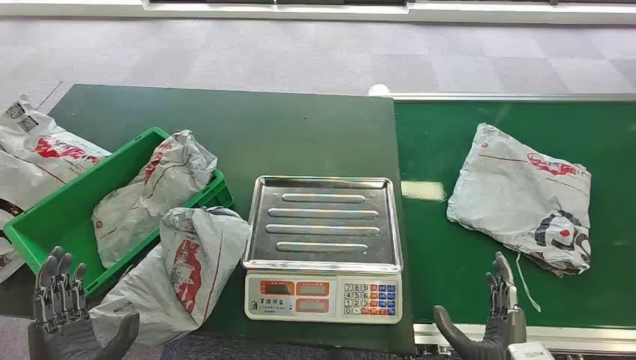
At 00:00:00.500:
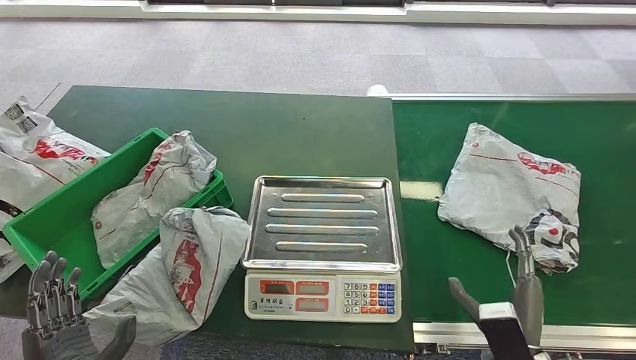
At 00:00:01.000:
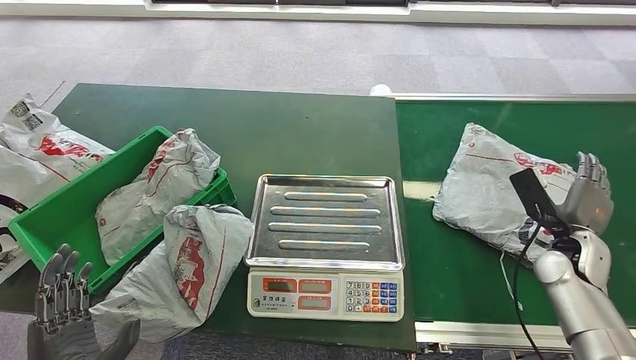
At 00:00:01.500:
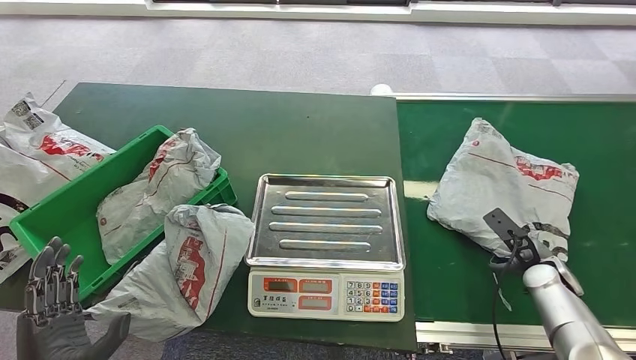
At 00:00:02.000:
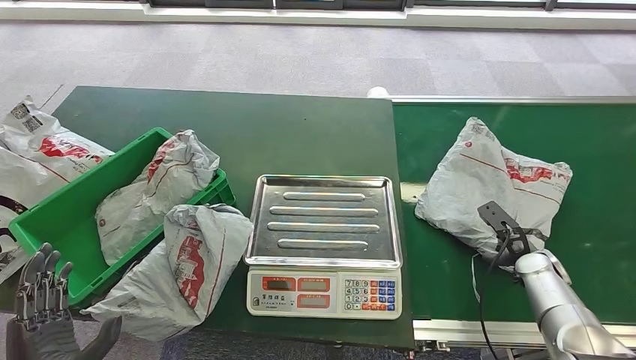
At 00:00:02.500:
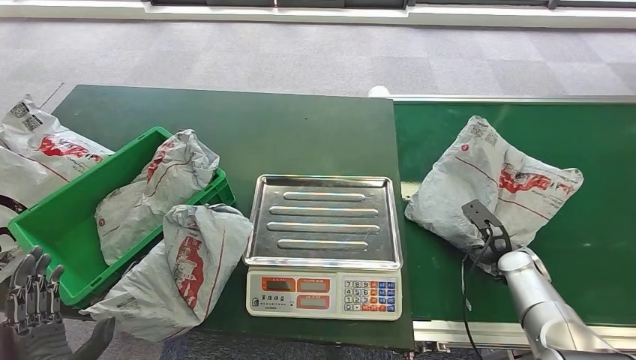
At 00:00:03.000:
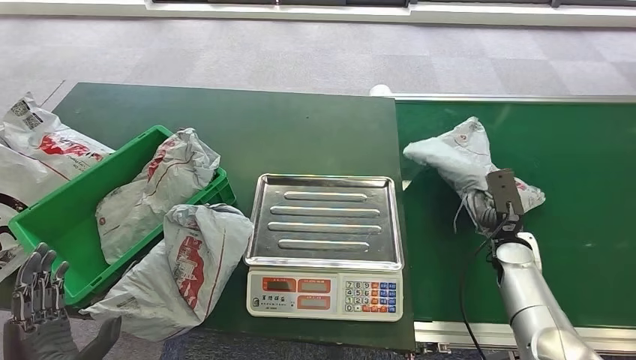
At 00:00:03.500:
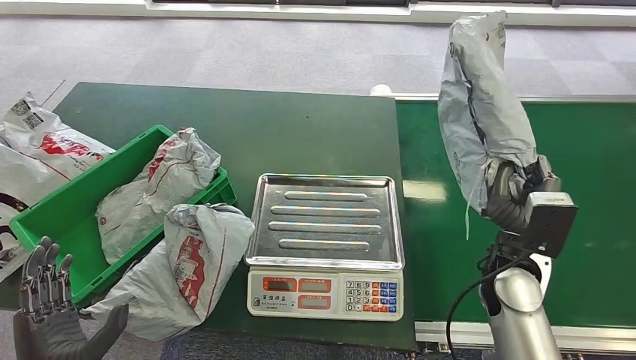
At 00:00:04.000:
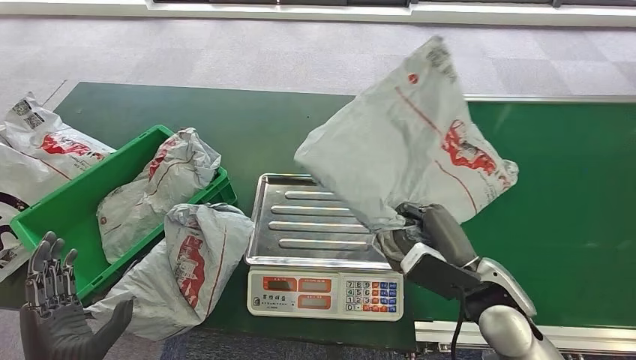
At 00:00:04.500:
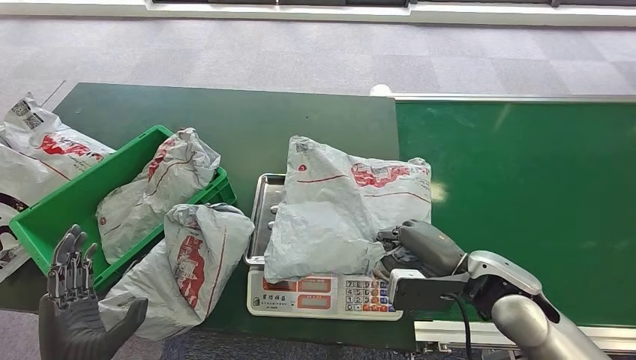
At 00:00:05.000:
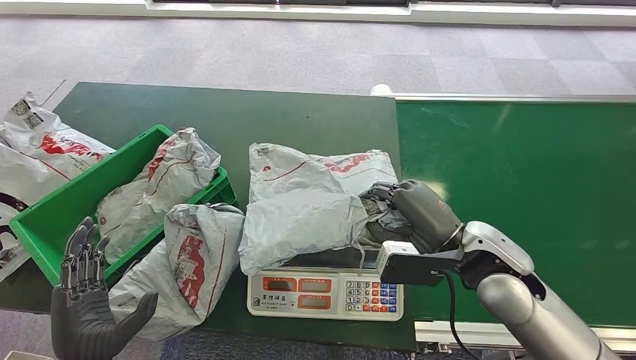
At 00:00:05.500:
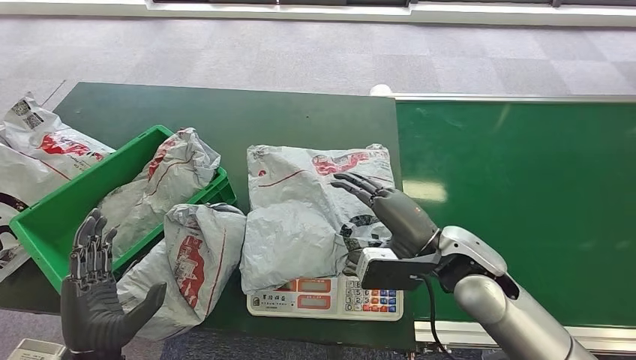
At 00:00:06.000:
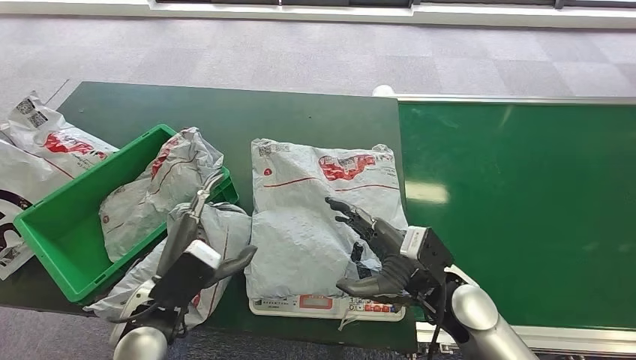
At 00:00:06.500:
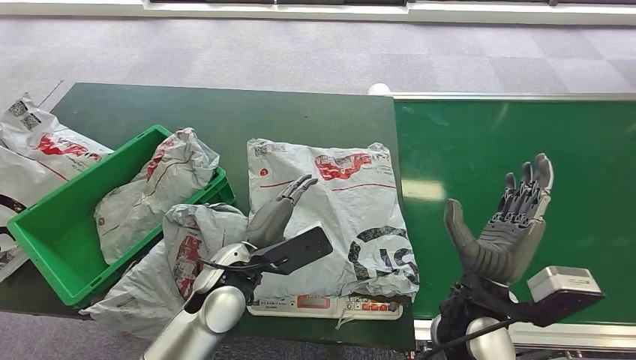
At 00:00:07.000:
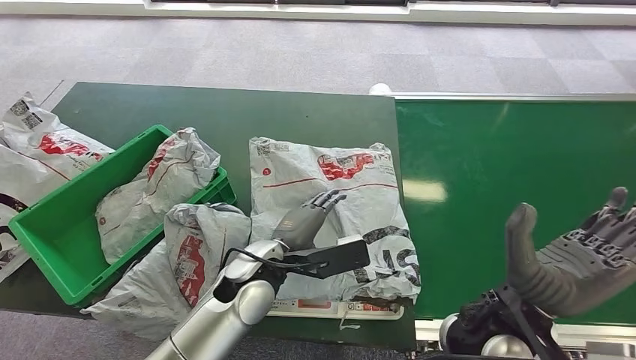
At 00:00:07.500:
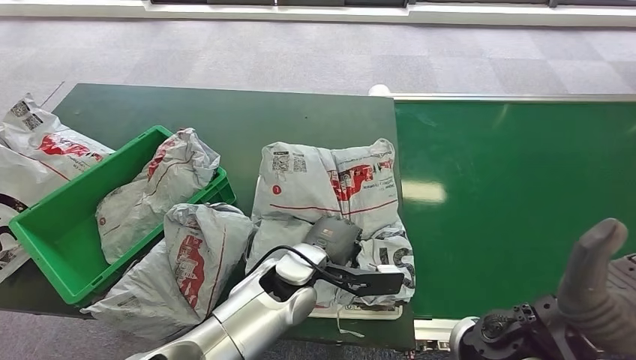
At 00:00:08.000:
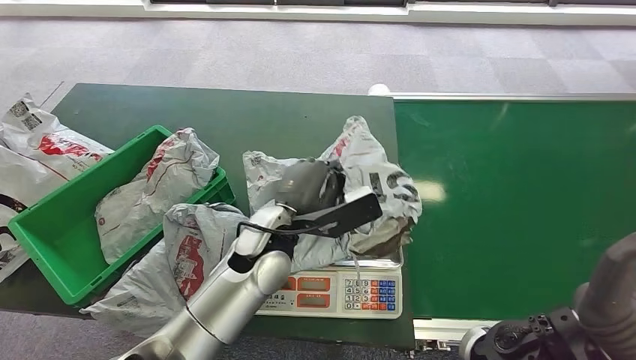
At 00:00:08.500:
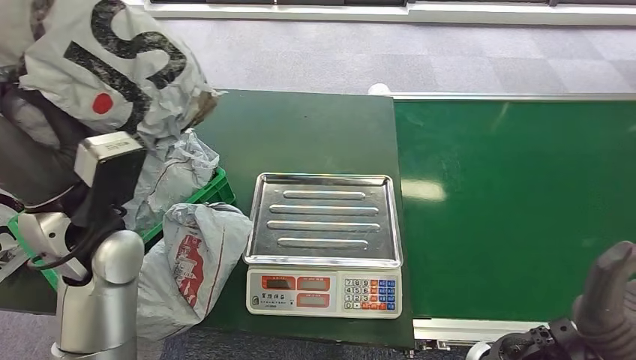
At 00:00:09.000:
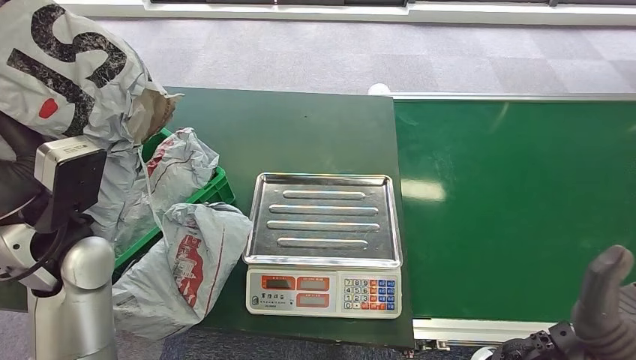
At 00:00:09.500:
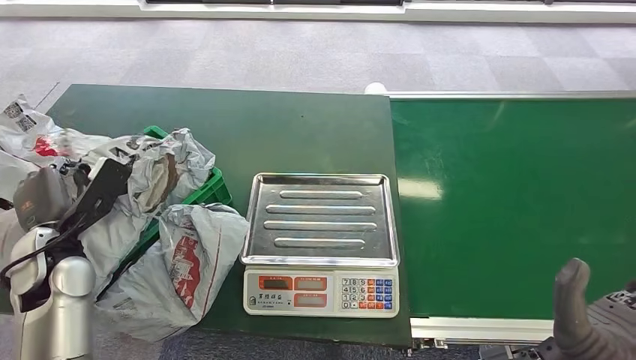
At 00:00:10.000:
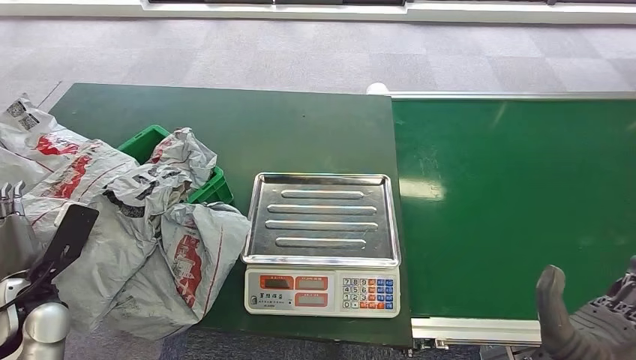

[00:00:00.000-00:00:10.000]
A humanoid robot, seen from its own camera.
Step, 00:00:00.000 to 00:00:03.000: Pick up the package from the conveyor belt.
Step, 00:00:03.500 to 00:00:05.000: Place the package onto the inbound machine.
Step, 00:00:05.500 to 00:00:08.500: Pick up the package from the inbound machine.
Step, 00:00:09.000 to 00:00:10.000: Place the package into the parcel locker.
